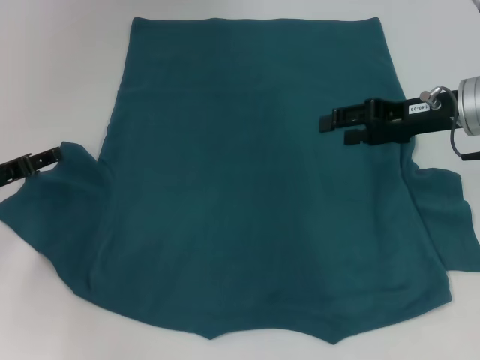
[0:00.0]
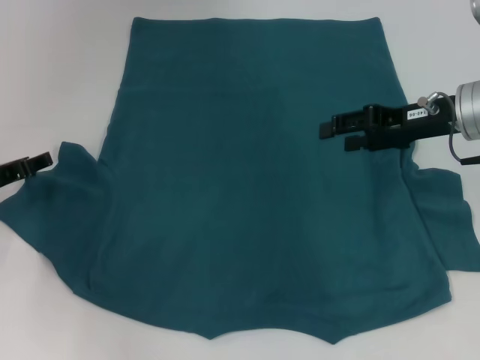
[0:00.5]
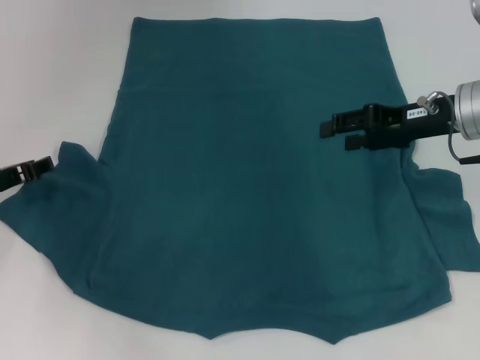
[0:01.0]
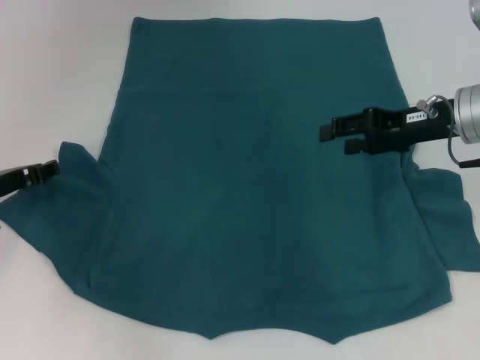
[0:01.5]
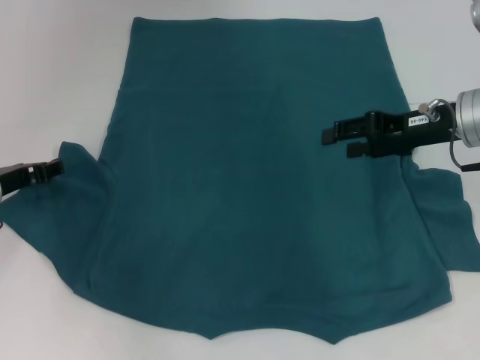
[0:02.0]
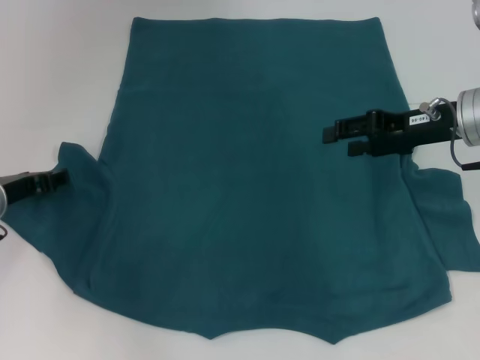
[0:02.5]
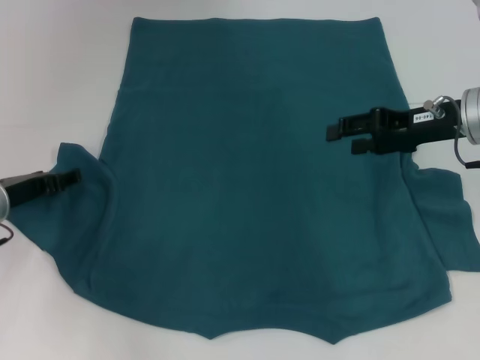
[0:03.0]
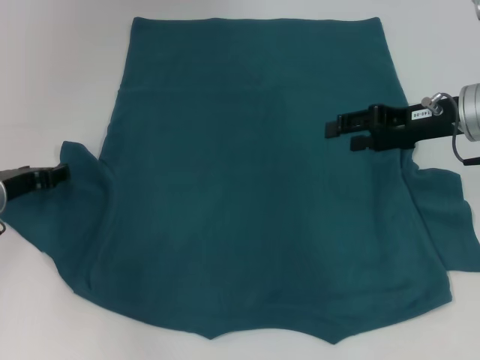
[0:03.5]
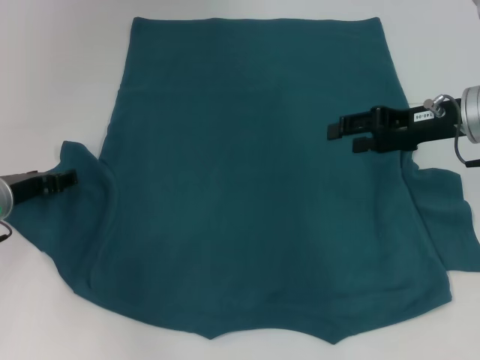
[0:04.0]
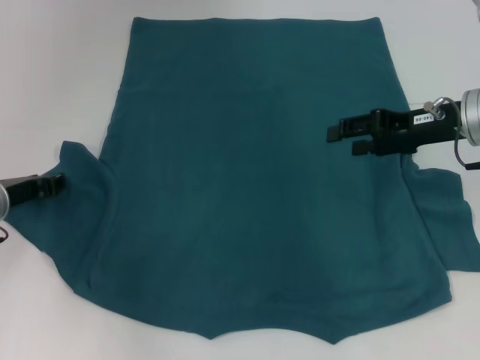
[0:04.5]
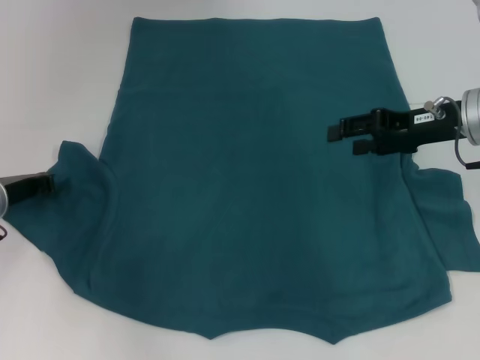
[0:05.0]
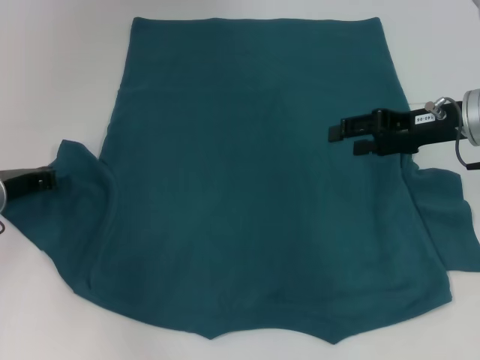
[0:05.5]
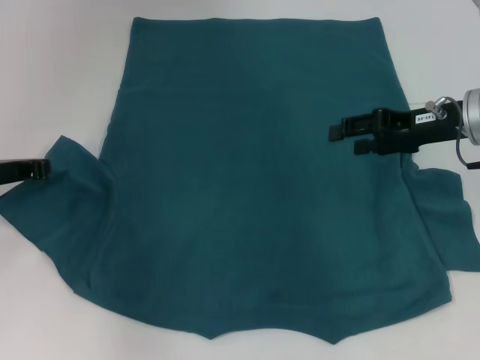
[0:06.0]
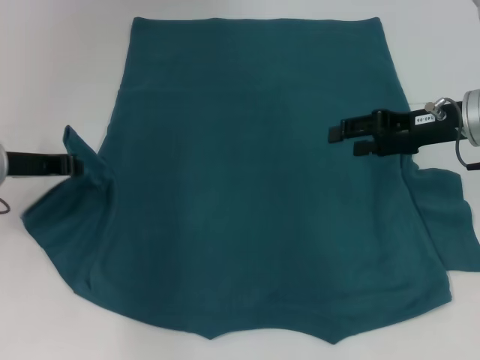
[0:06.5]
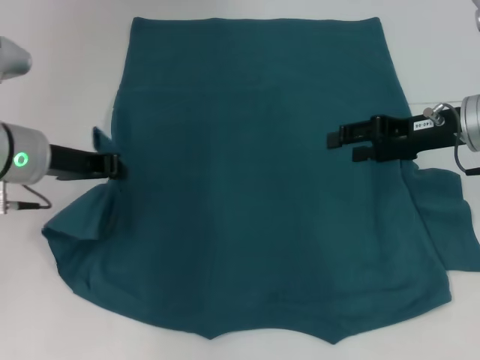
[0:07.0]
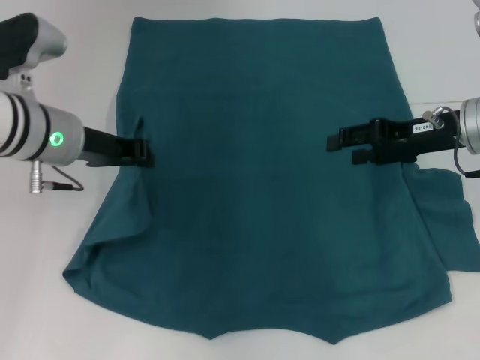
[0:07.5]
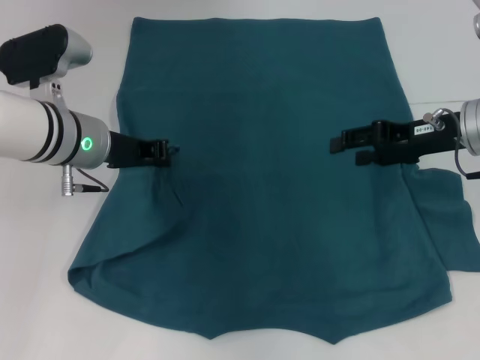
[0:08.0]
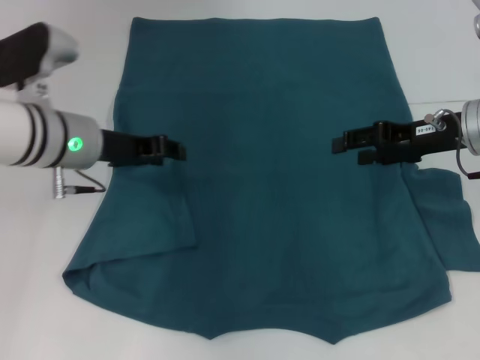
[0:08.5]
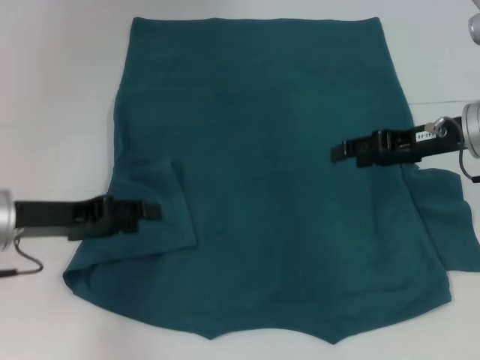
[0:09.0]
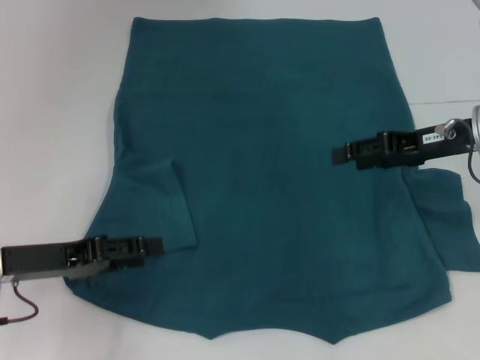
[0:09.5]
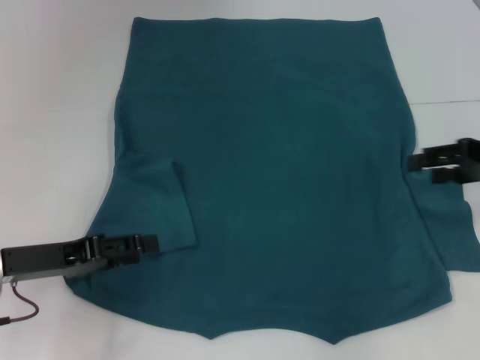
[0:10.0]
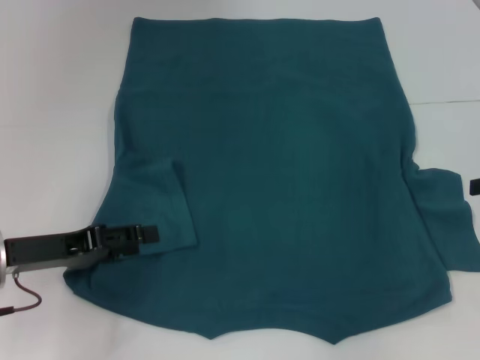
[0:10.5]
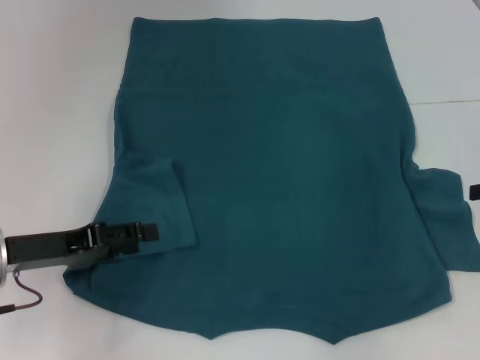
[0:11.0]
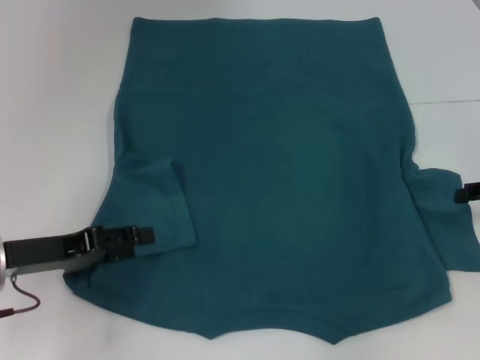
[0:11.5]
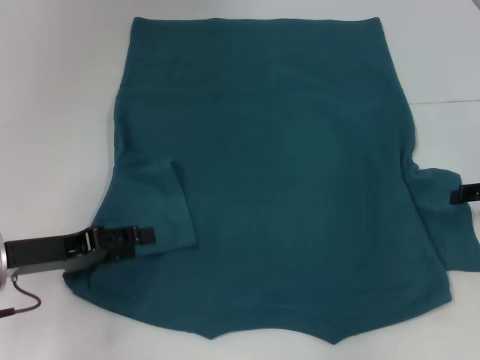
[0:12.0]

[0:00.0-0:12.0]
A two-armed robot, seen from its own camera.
Step, 0:00.0 to 0:08.0: Fold the bottom left sleeve with your left hand.
0:00.0 to 0:02.0: There are only small adjustments of the grippers.
0:02.0 to 0:04.0: The grippers make only small movements.
0:04.0 to 0:06.0: The left gripper closes up.
0:06.0 to 0:08.0: The left gripper shifts approximately 10 cm to the right.
0:08.0 to 0:10.0: The left gripper heads backward and to the left, covering about 15 cm, and opens its fingers. Meanwhile the right gripper is displaced to the right by about 5 cm.
0:10.0 to 0:12.0: The right gripper moves downward, roughly 5 cm.

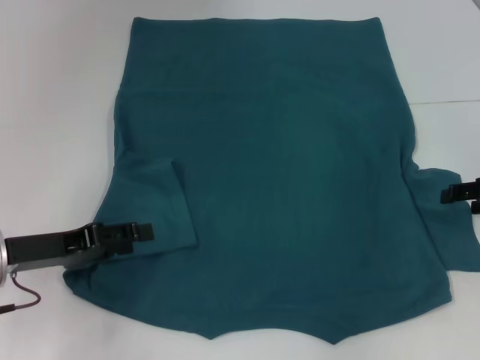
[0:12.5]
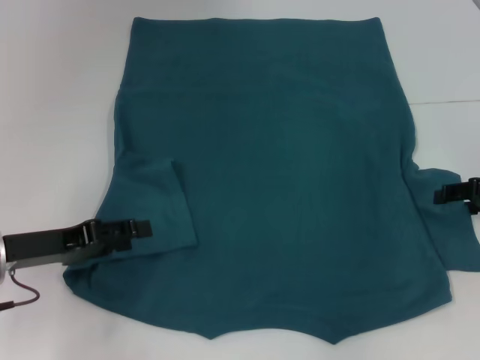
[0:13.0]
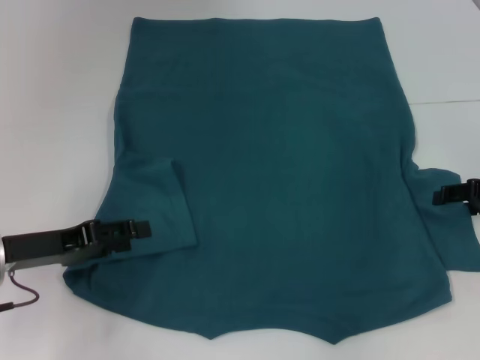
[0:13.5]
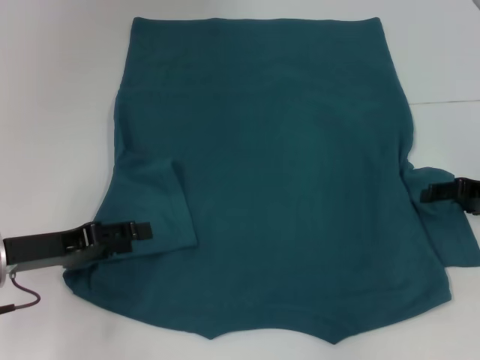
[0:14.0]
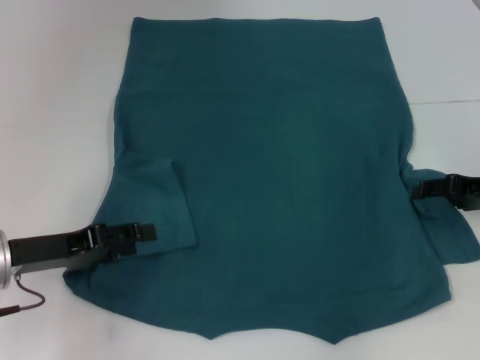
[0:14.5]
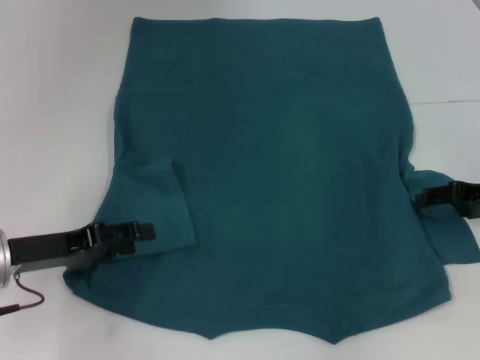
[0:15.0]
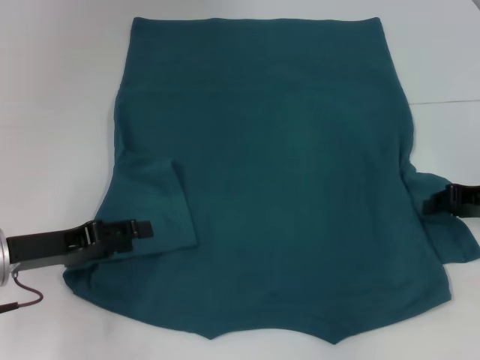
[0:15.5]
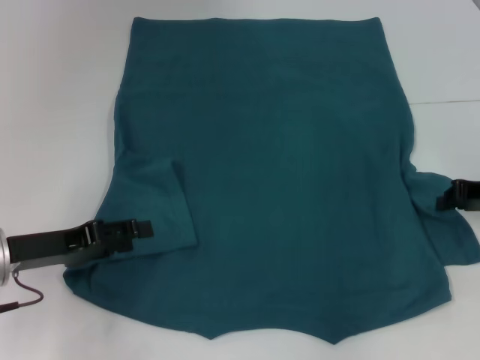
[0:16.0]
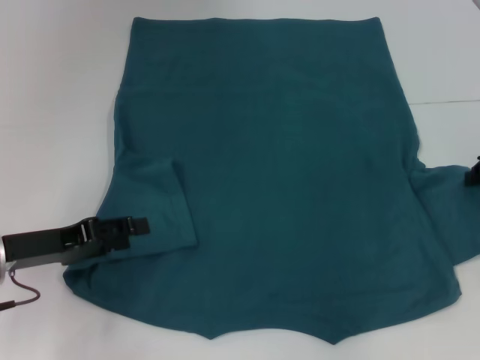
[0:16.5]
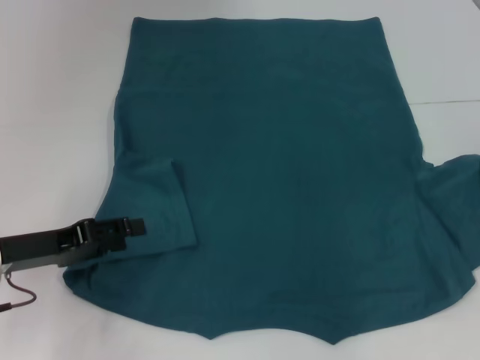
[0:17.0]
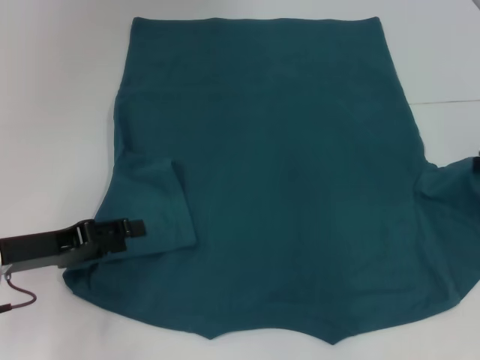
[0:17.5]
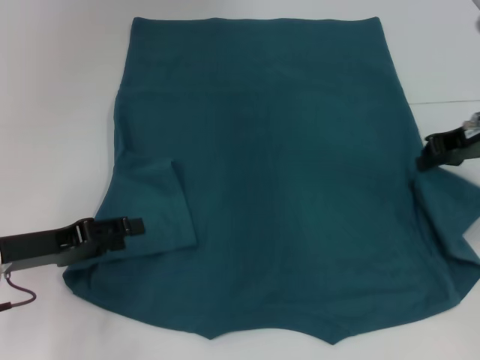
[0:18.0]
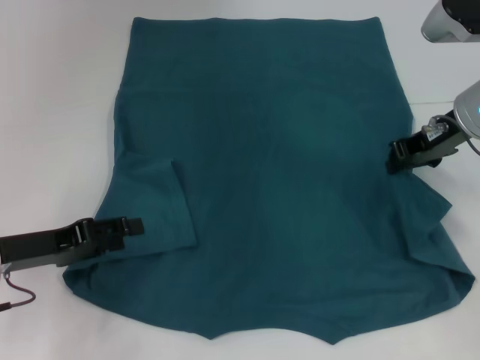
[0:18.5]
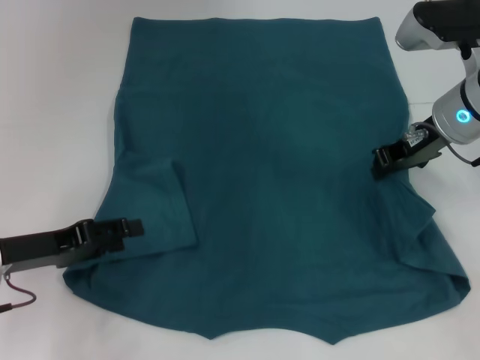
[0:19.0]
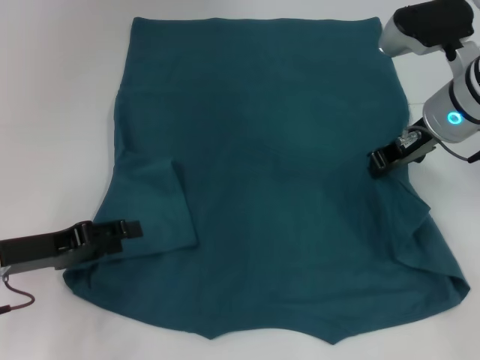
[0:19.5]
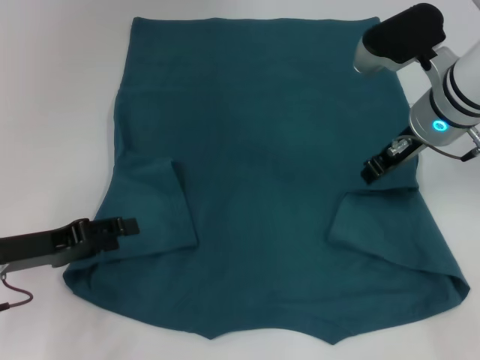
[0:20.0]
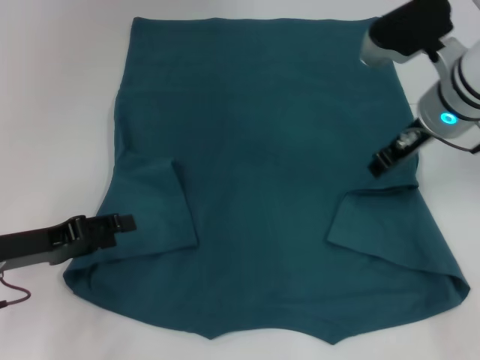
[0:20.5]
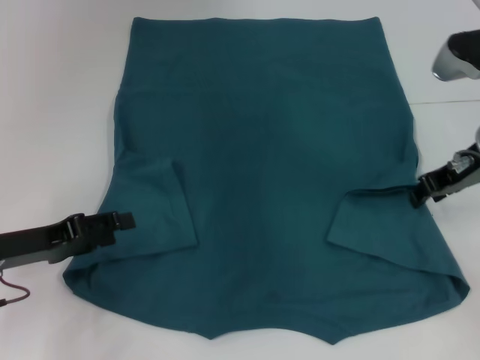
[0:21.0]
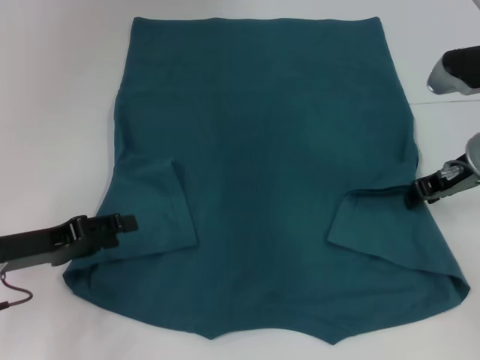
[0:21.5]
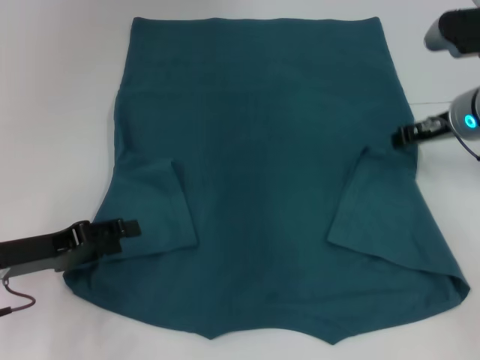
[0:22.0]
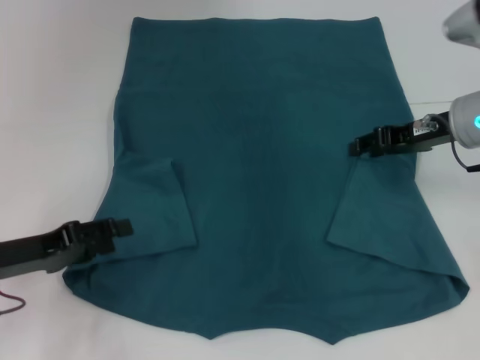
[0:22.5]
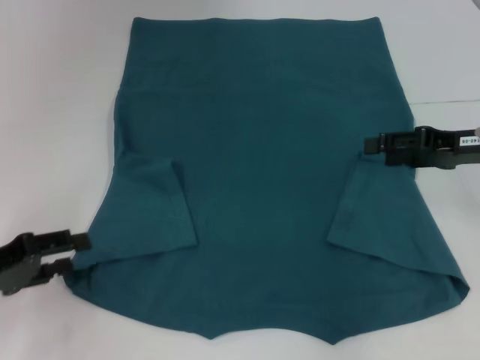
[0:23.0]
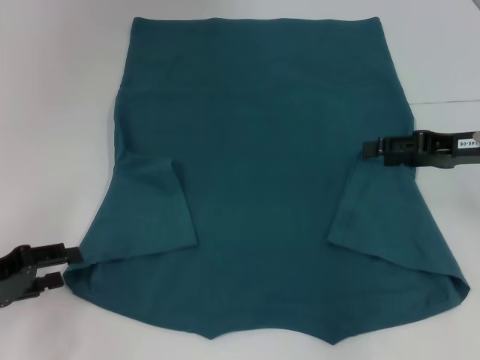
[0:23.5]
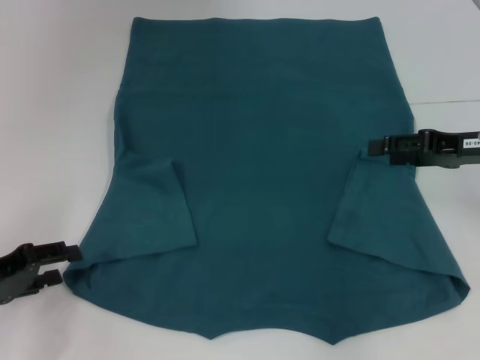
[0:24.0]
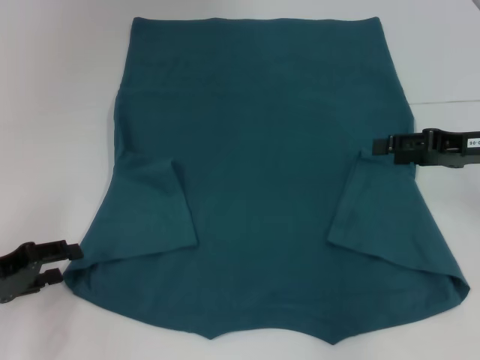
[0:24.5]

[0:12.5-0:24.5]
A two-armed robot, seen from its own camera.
Step, 0:12.5 to 0:22.5: Fold the bottom right sleeve to the right.
0:12.5 to 0:14.5: The grippers stay close to where they were, moving slightly.
0:14.5 to 0:16.5: The right gripper closes up.
0:16.5 to 0:18.5: The right gripper is displaced to the left by some 10 cm.
0:18.5 to 0:20.5: The right gripper opens.
0:20.5 to 0:22.5: The right gripper goes roughly 5 cm to the right.
0:22.5 to 0:24.5: The right gripper heads to the right, covering about 5 cm.

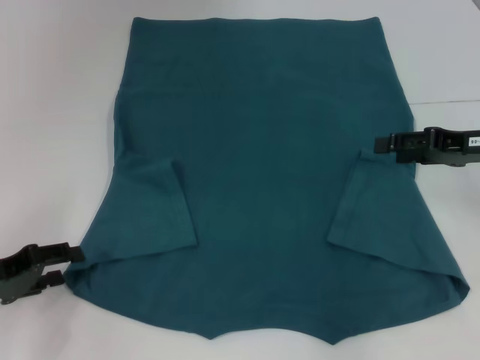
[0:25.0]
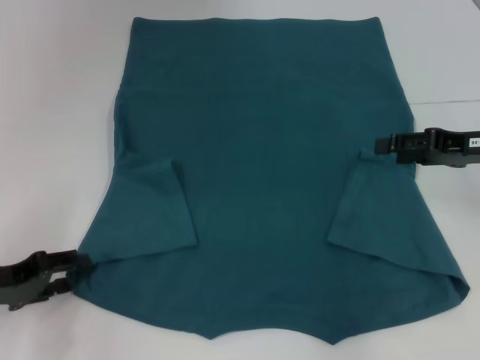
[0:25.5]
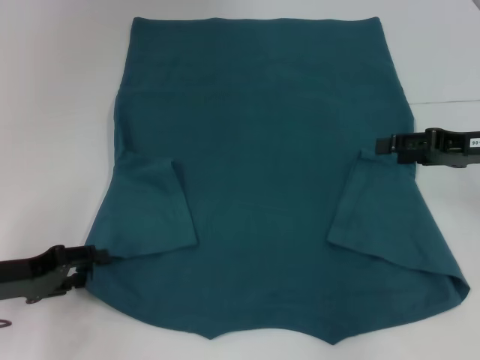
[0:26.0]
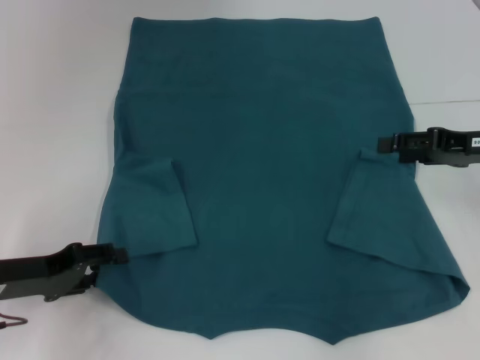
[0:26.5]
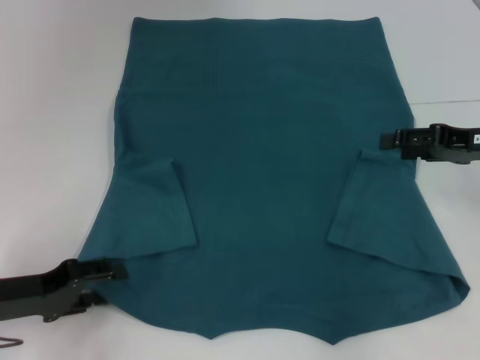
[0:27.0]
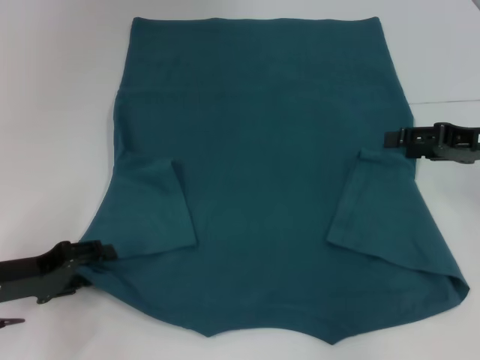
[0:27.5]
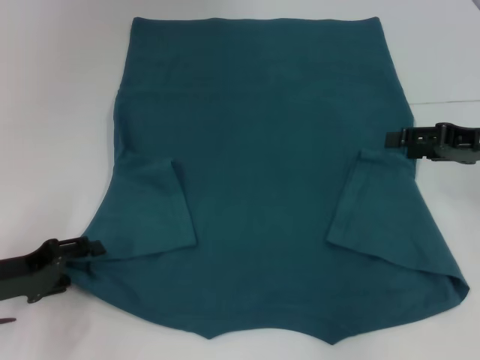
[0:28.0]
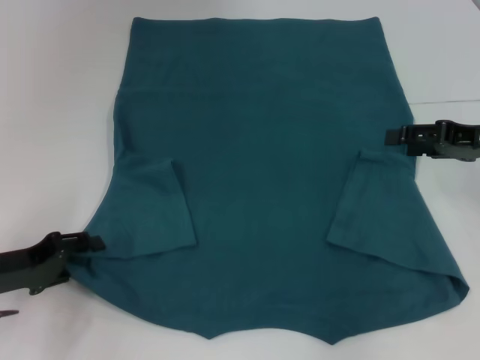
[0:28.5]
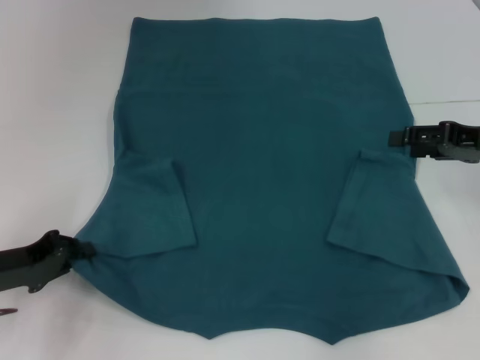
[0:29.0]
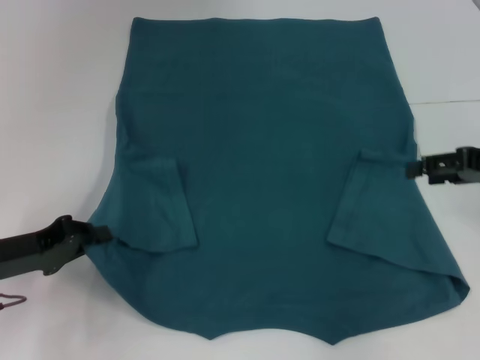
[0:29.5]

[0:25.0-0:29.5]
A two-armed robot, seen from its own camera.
Step, 0:25.0 to 0:29.0: Grab the bottom left corner with your left hand.
0:25.0 to 0:27.0: The grippers make only small movements.
0:27.0 to 0:29.5: The left gripper closes.
